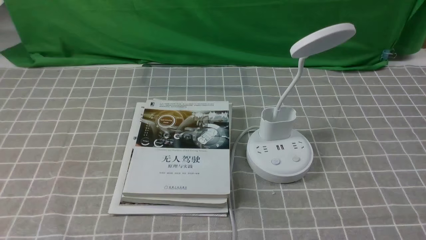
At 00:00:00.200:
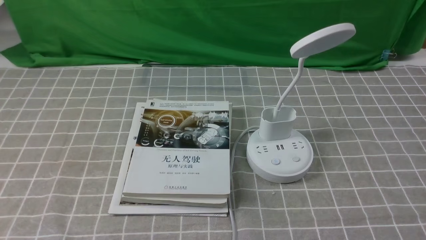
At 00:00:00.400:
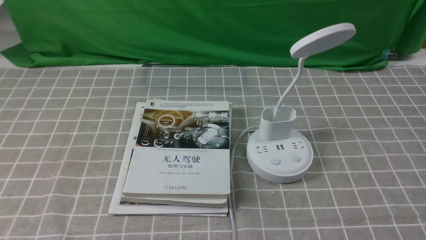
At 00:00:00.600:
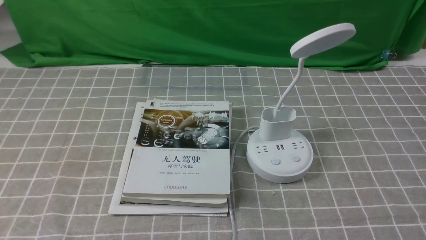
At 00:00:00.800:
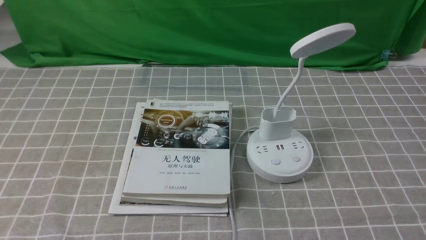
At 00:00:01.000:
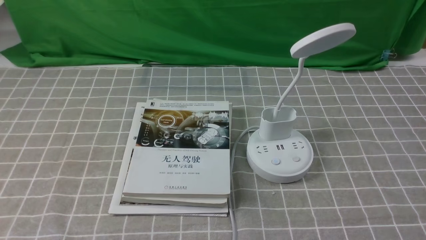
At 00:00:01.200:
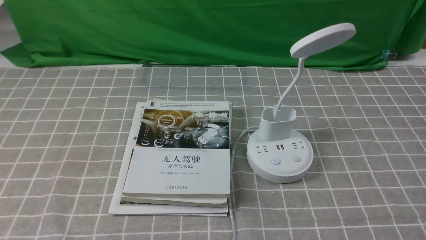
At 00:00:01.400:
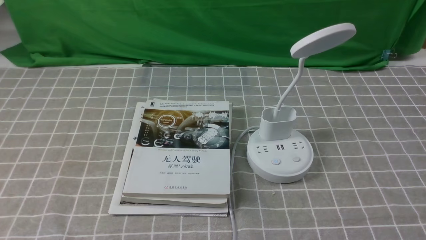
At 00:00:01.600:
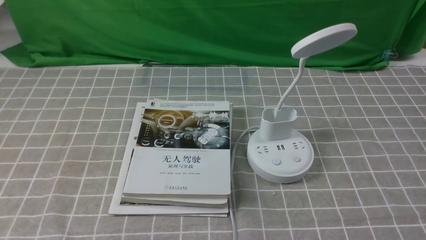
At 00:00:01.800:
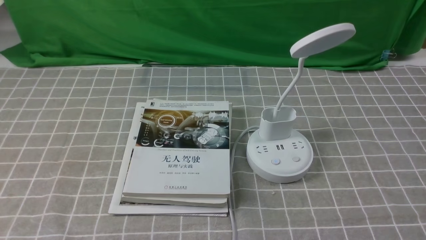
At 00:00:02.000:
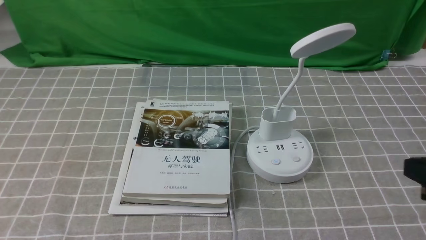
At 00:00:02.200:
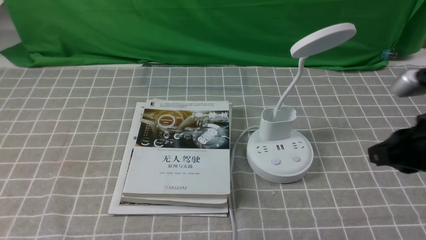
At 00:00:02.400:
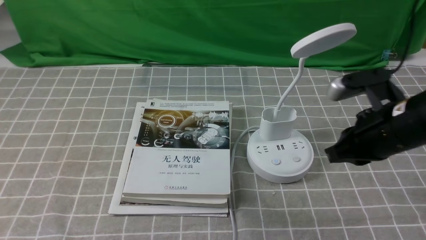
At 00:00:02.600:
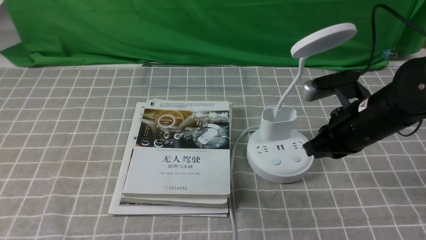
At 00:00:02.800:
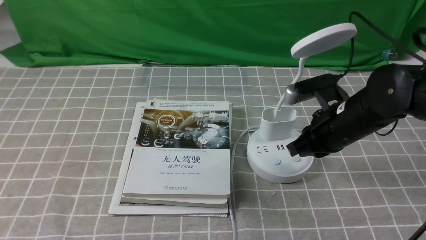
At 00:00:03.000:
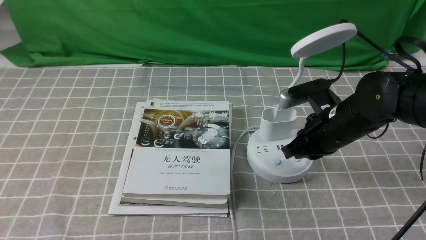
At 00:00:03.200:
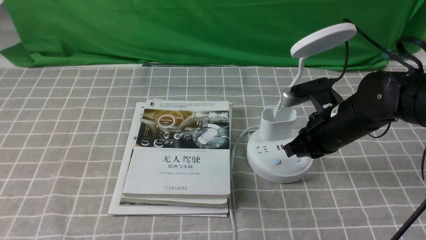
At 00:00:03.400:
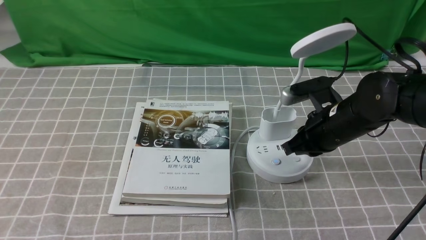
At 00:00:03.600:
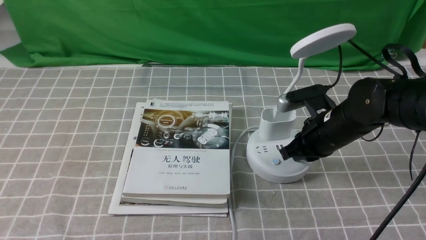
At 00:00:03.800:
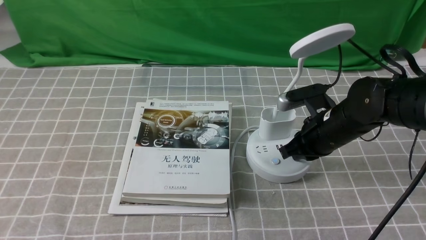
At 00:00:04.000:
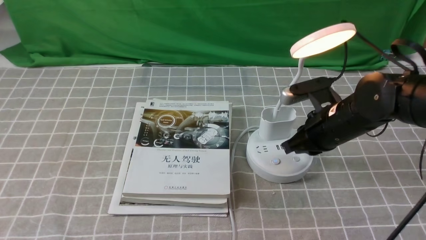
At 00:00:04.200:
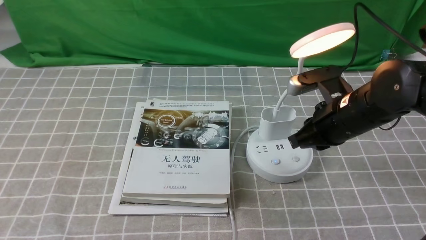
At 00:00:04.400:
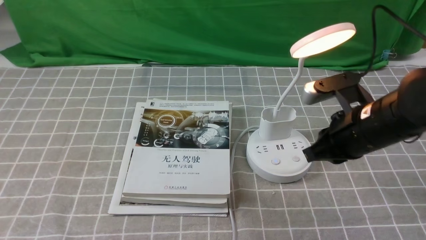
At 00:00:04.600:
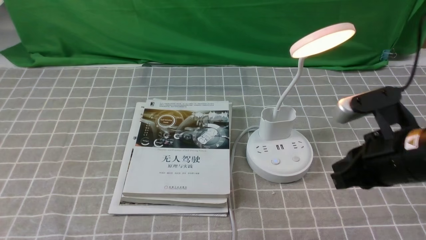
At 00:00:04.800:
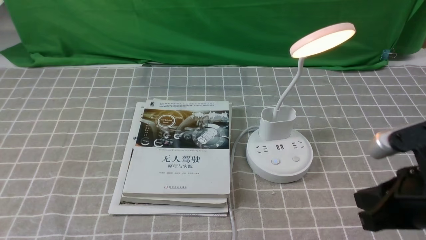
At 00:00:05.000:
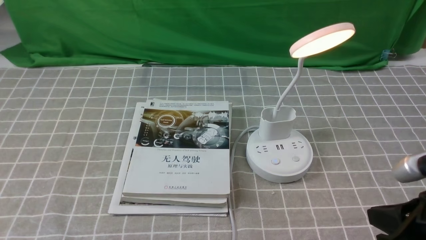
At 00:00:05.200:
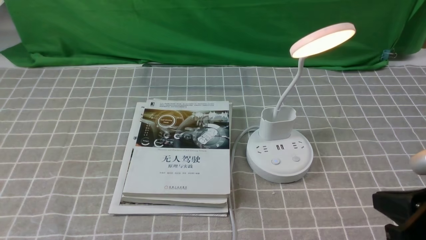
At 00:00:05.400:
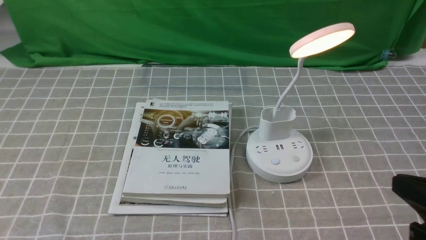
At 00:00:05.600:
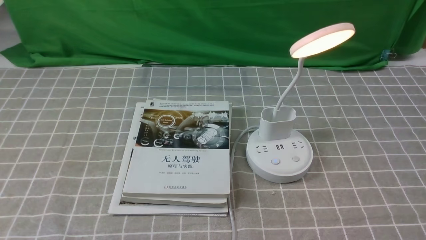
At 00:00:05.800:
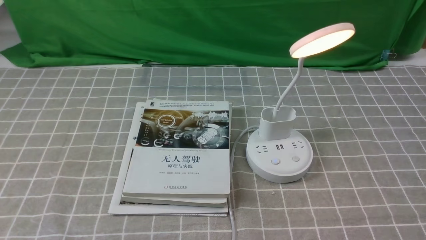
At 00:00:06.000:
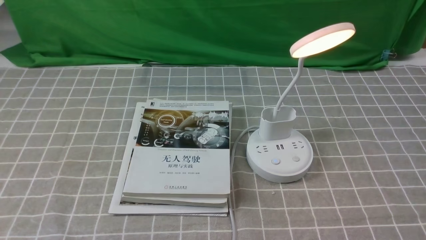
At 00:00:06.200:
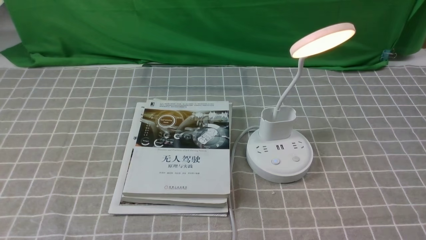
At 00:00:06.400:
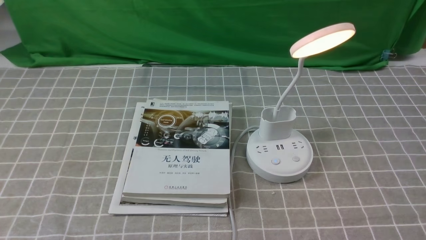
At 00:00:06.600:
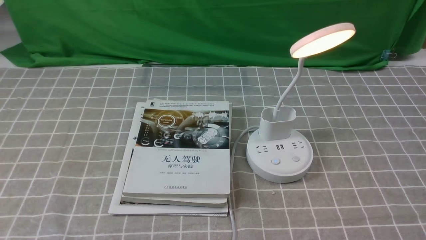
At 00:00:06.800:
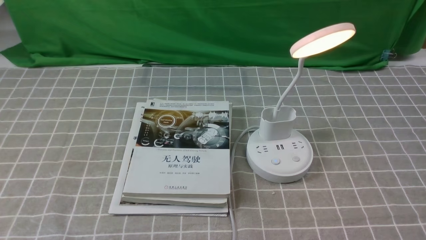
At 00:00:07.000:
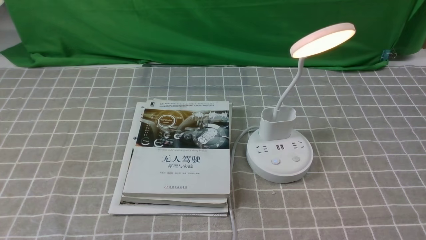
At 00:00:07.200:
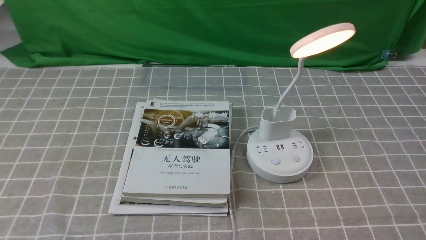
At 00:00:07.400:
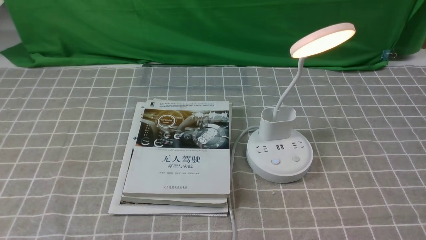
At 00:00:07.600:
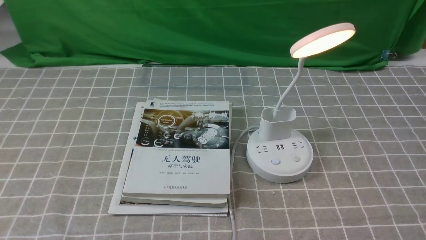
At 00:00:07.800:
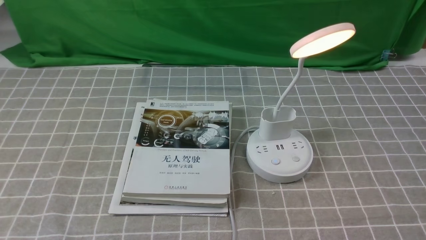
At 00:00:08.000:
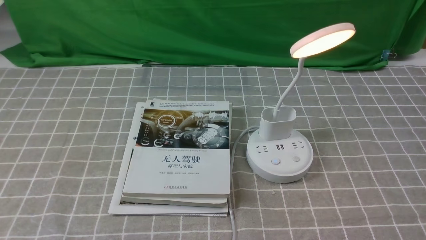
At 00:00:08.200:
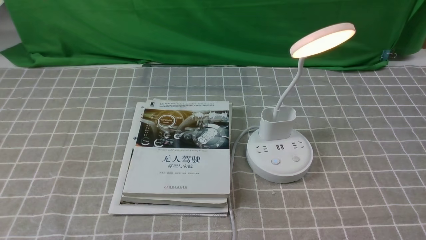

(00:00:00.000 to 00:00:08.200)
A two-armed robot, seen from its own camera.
Step, 00:00:00.000 - 00:00:04.200: use the right arm to press the button switch on the lamp holder.
00:00:01.600 - 00:00:03.200: The right gripper shifts roughly 30 cm forward and to the left, and closes up.
00:00:03.200 - 00:00:05.000: The right gripper moves backward and to the right, about 20 cm.
00:00:05.000 - 00:00:06.600: The right gripper heads backward, downward and to the right, covering some 10 cm.
